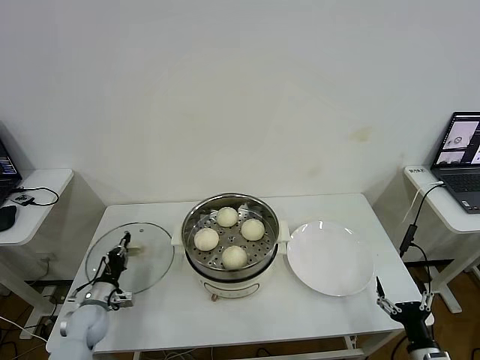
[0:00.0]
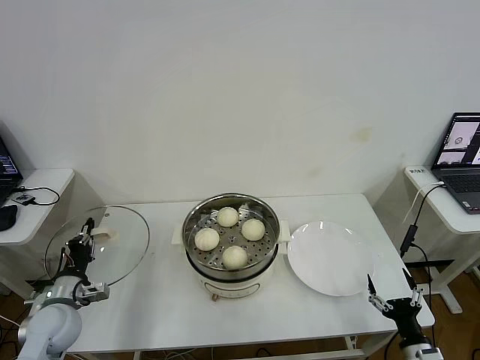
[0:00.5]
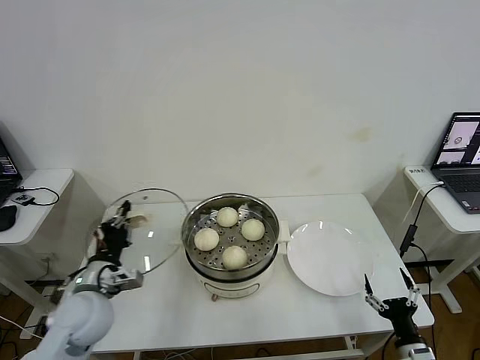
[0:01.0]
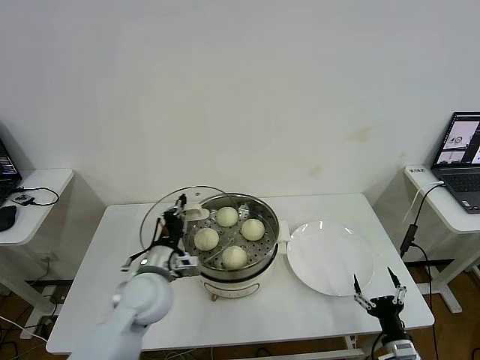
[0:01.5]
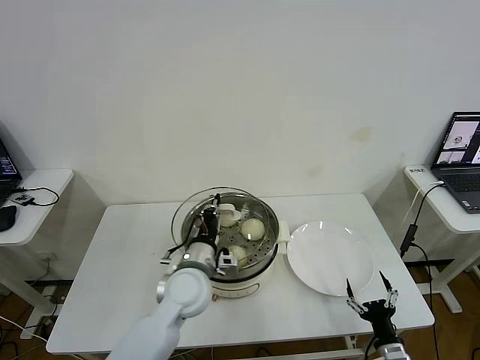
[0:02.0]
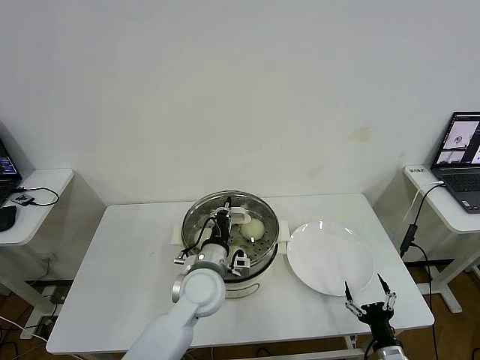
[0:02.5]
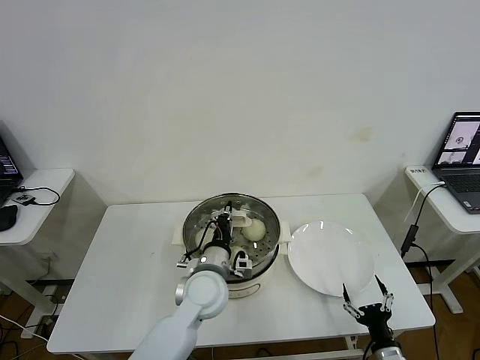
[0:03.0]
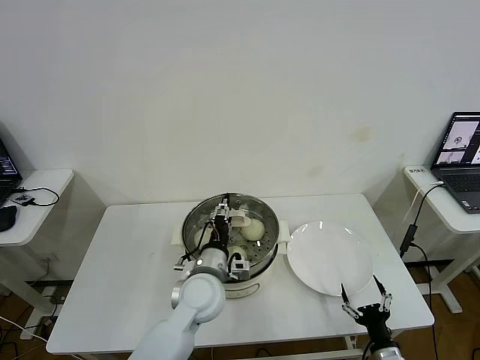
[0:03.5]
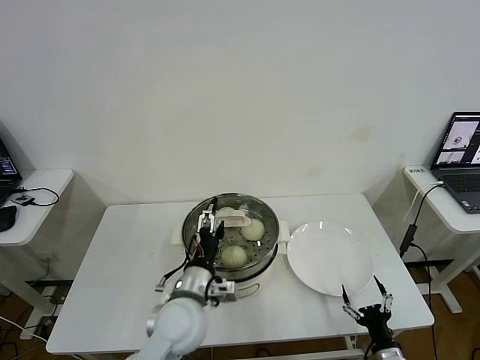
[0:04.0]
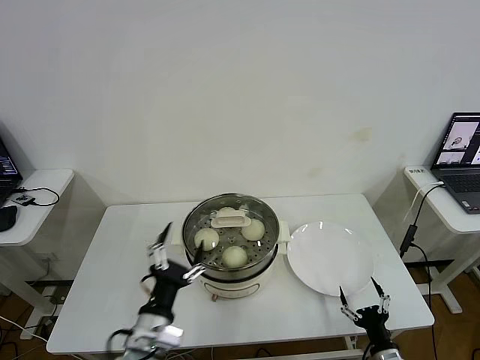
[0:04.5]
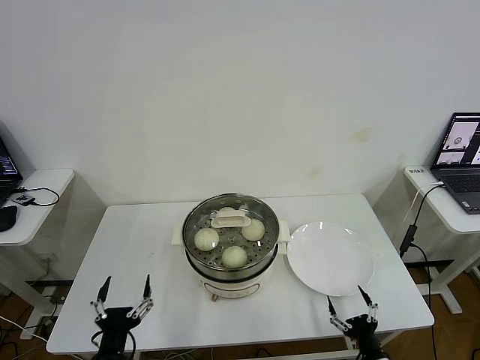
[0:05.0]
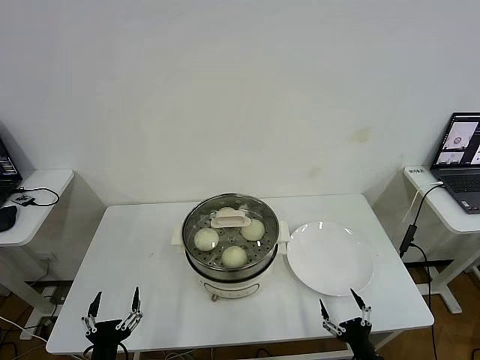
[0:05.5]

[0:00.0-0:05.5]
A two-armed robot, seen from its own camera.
Step, 0:00.0 to 0:04.0: Place the pot lid on the steamer with left gripper.
0:00.0 to 0:02.0: The right gripper travels to the left by about 5 cm, while the left gripper moves to the right and upward, some 35 cm.
0:02.0 to 0:03.5: The left gripper opens its fingers.
0:03.5 to 0:05.5: The left gripper heads backward, to the left and downward, covering roughly 30 cm, and opens its fingers.

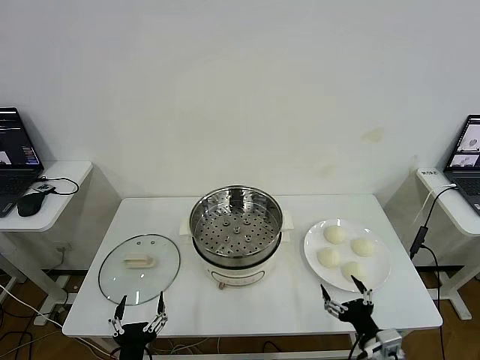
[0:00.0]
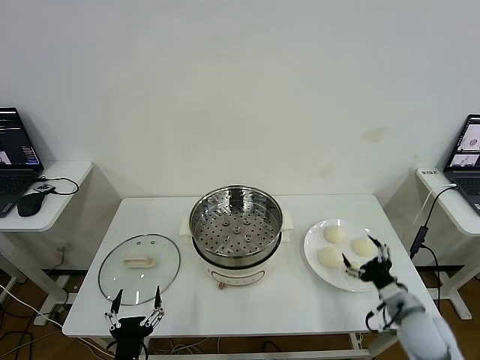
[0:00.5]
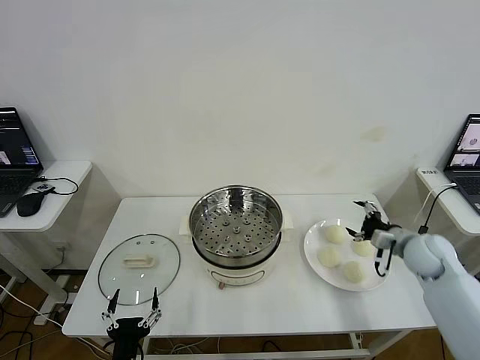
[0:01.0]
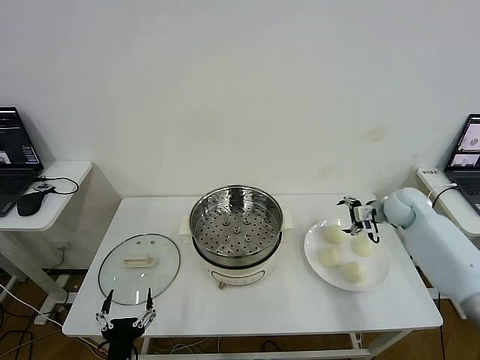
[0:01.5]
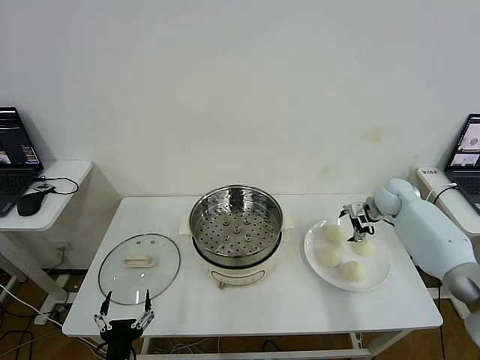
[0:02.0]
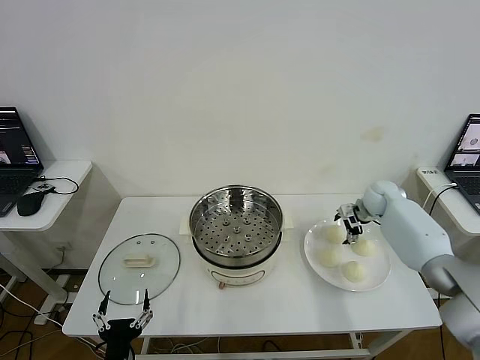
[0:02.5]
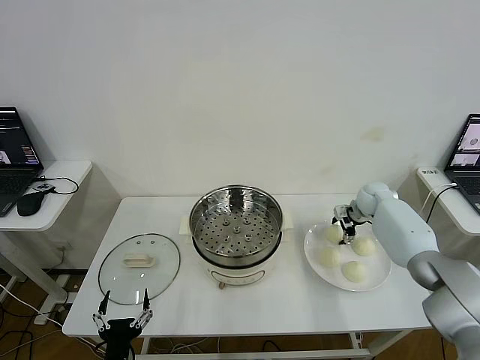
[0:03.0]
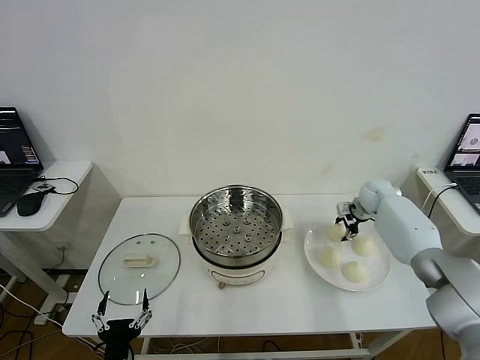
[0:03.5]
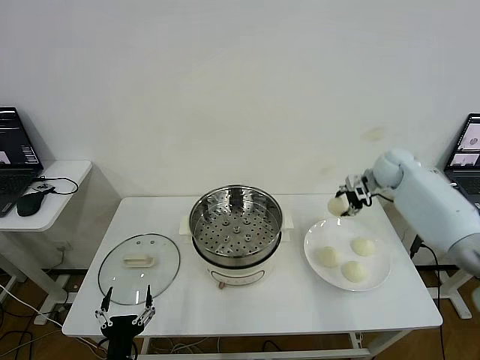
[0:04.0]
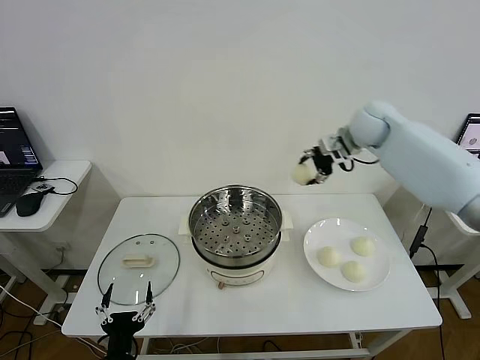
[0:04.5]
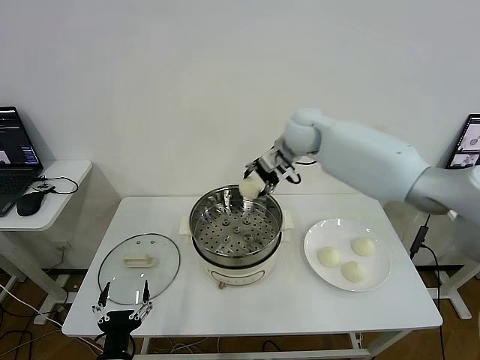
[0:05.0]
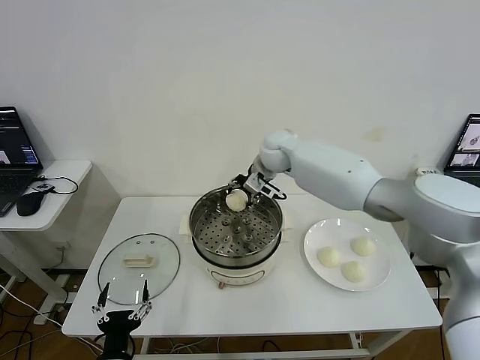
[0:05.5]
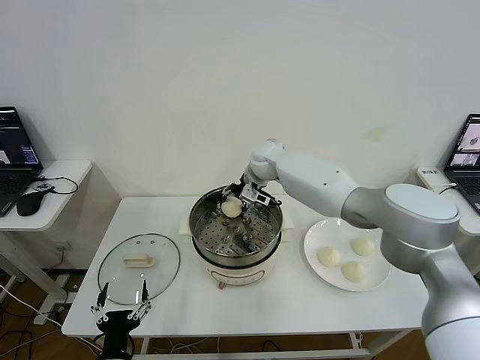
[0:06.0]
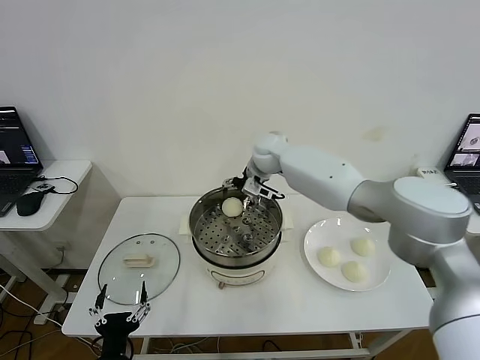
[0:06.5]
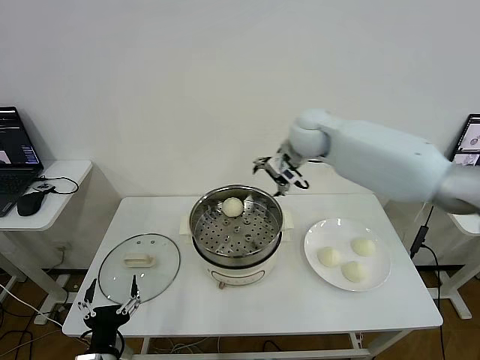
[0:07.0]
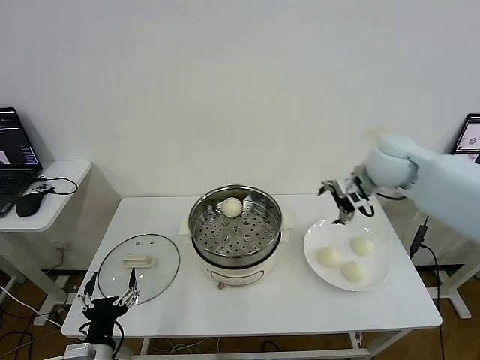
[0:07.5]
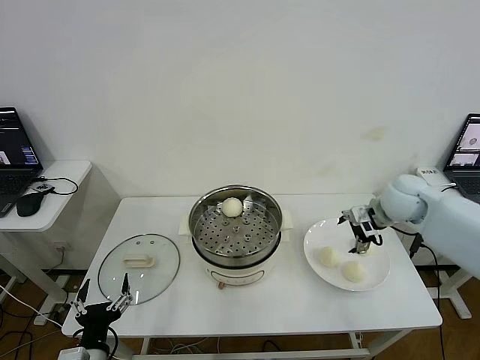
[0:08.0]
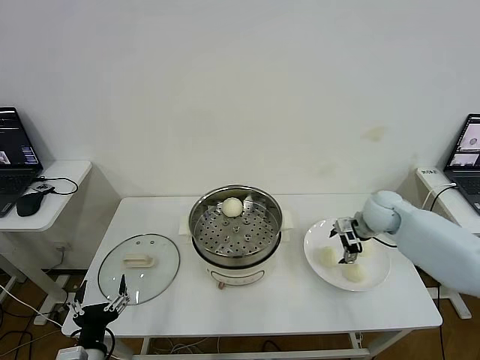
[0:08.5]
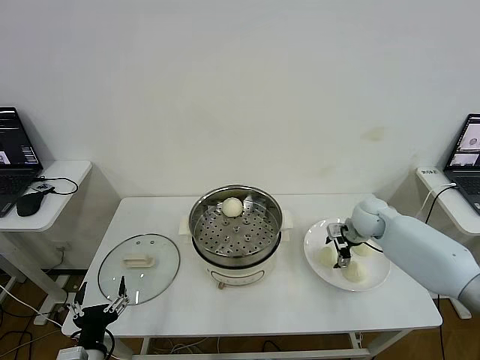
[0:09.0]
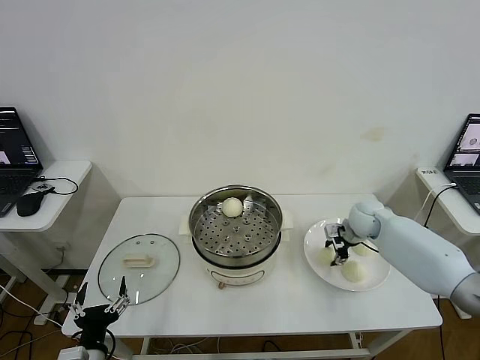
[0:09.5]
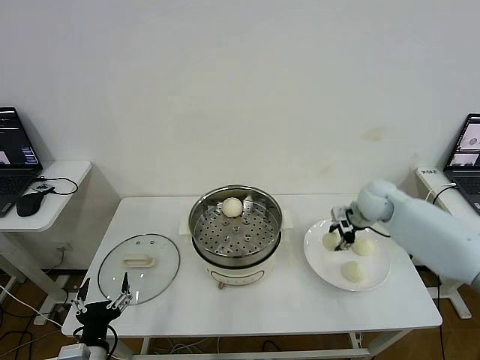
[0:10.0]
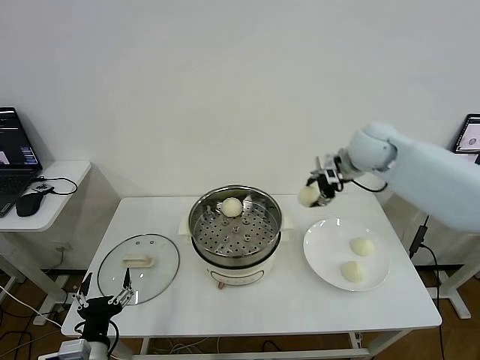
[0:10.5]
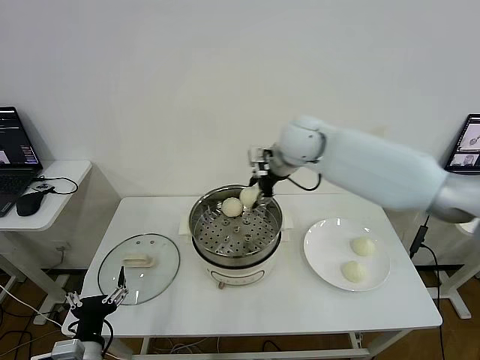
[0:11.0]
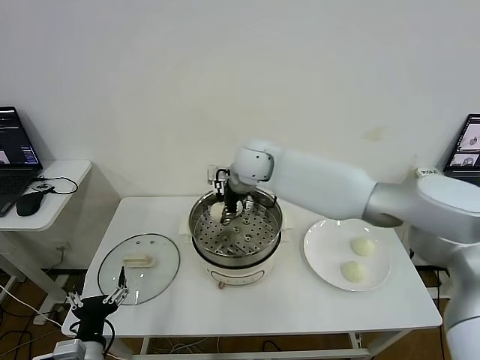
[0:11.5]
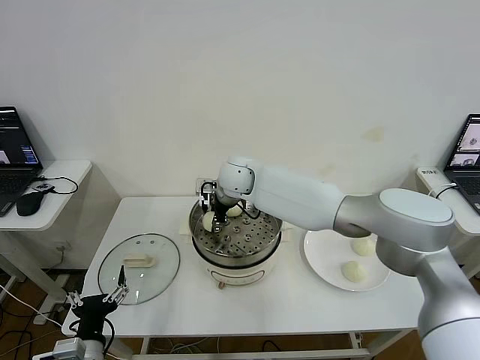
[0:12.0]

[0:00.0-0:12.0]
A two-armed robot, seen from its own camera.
Step, 0:00.0 to 0:03.0: Grasp the baozi in the plate with right gripper.
Step, 0:03.5 to 0:06.0: Place the baozi on the steamer with right gripper.
Step, 0:06.5 to 0:09.5: Grasp the baozi in the plate with right gripper.
0:02.0 to 0:04.0: The right gripper is displaced upward by approximately 10 cm, and closes up.
0:04.0 to 0:06.0: The right gripper goes about 30 cm to the left.
0:06.0 to 0:08.0: The left gripper changes place by some 5 cm. The right gripper heads to the right and backward, covering some 30 cm, and opens its fingers.
0:08.0 to 0:10.0: The right gripper travels downward and back again, roughly 10 cm each way, and closes.
0:10.0 to 0:12.0: The right gripper goes about 35 cm to the left.

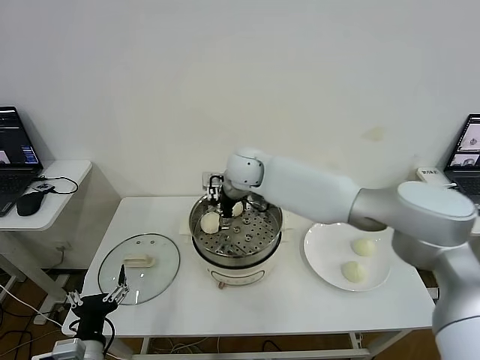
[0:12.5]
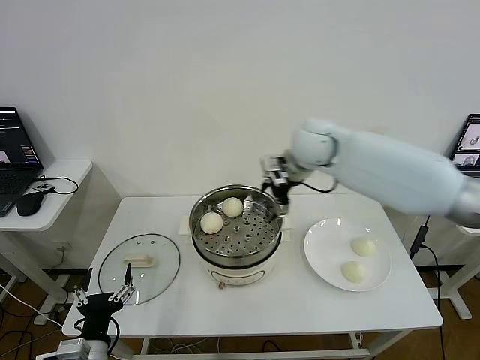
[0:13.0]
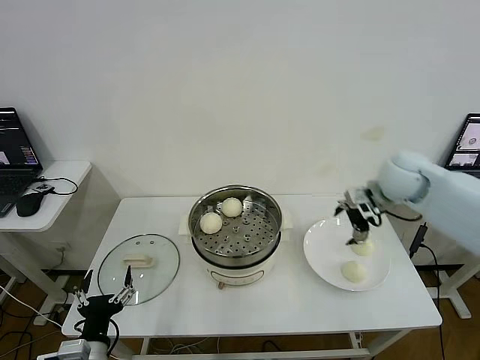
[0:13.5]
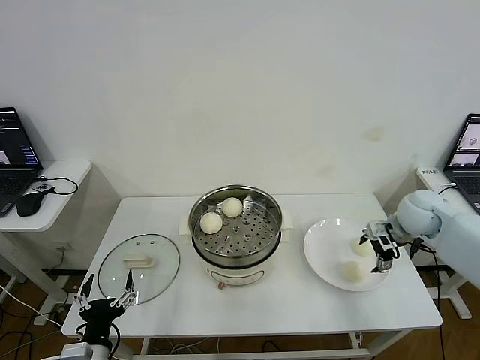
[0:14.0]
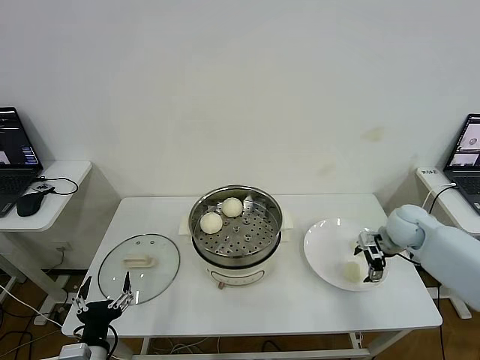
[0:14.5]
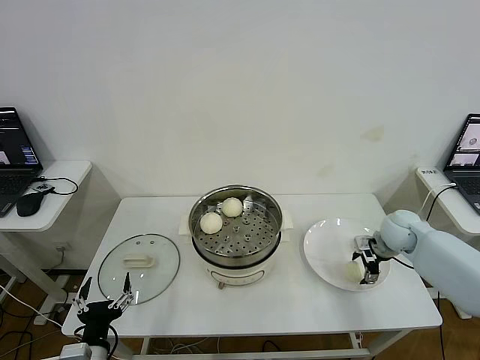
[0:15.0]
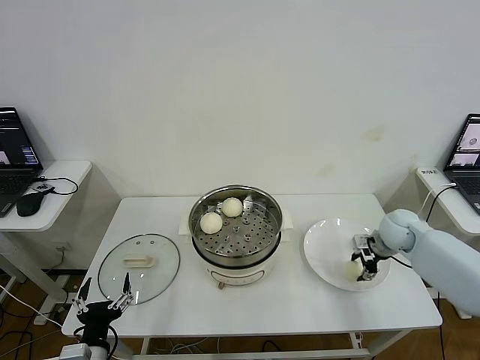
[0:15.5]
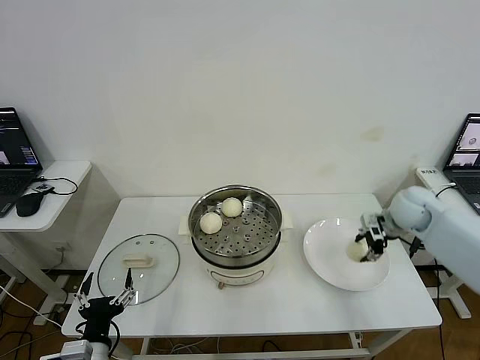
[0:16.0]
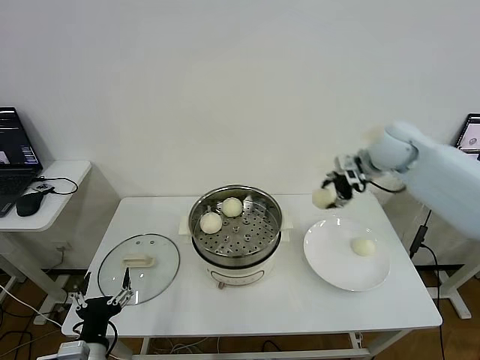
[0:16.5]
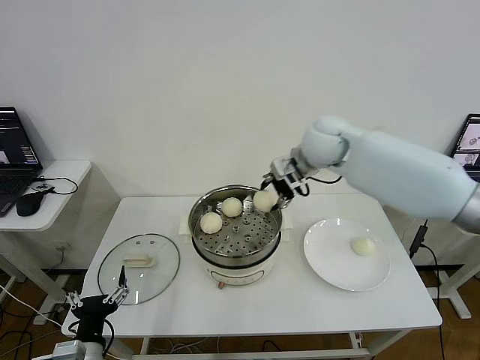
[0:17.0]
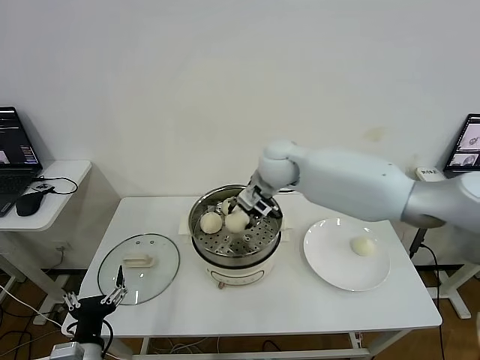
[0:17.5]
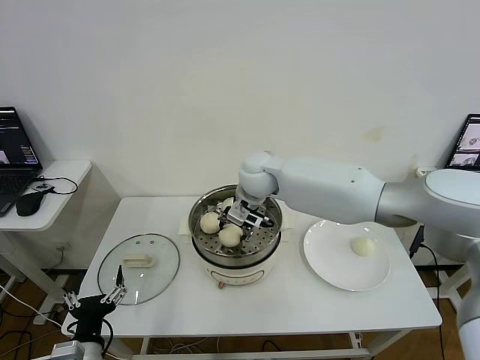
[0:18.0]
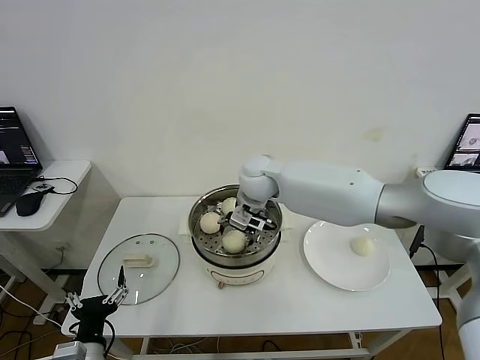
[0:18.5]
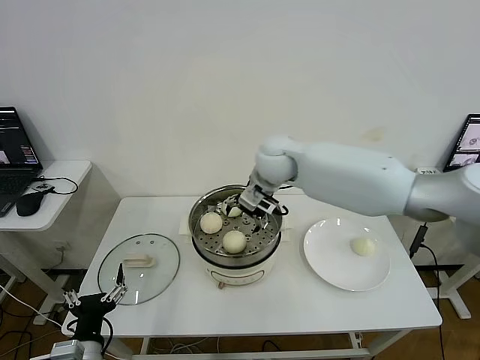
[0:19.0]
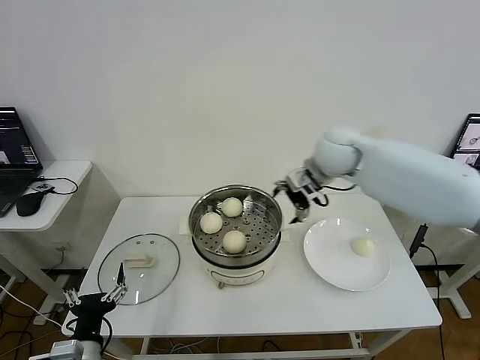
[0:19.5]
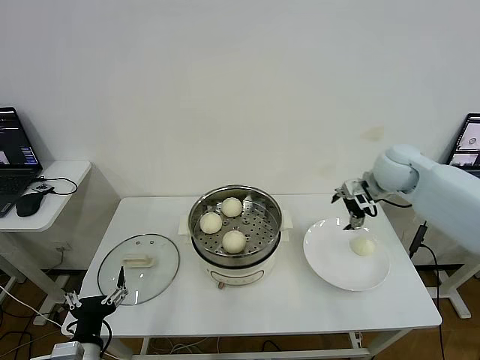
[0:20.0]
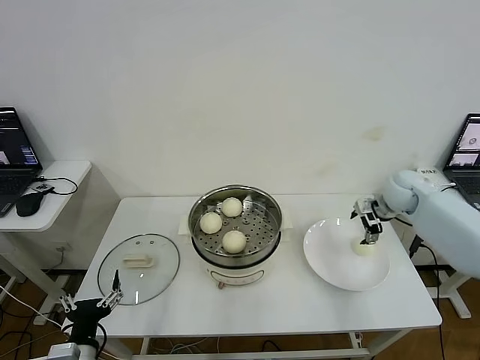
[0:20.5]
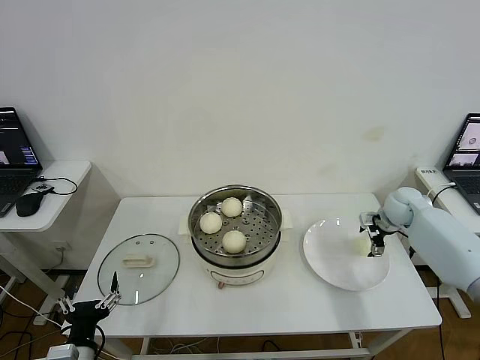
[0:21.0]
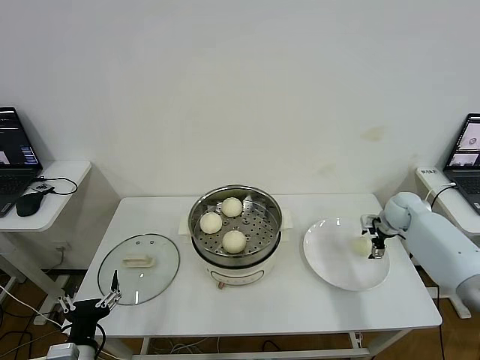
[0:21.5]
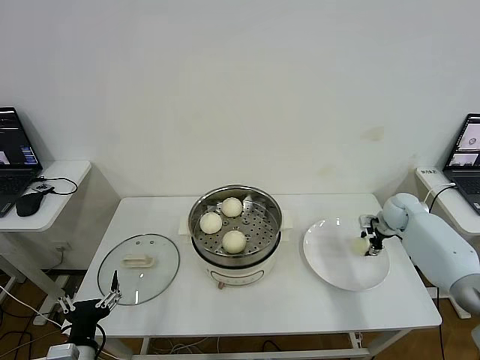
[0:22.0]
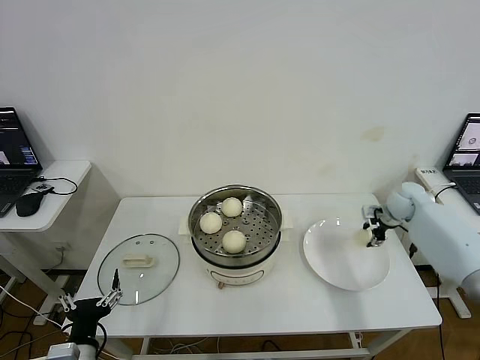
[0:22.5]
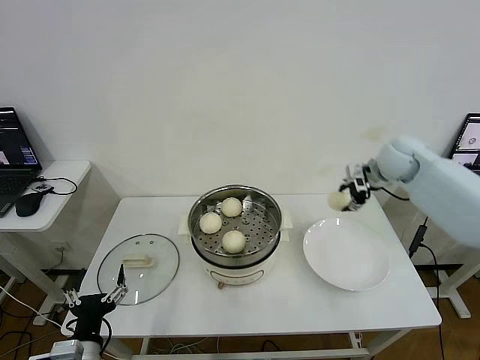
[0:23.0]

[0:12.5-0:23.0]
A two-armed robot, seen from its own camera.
Step, 0:12.5 to 0:15.5: Grasp the baozi in the plate with right gripper.
Step, 0:16.0 to 0:18.5: Place the baozi on the steamer with right gripper.
Step, 0:19.0 to 0:22.0: Grasp the baozi in the plate with right gripper.
0:12.5 to 0:14.5: The right gripper is displaced to the right by roughly 40 cm.
0:14.5 to 0:16.5: The right gripper travels upward and to the left by approximately 20 cm, and closes its fingers.
0:16.5 to 0:19.0: The right gripper heads to the left, covering approximately 20 cm, and opens.
0:19.0 to 0:21.0: The right gripper goes approximately 40 cm to the right and downward.
0:21.0 to 0:23.0: The right gripper is displaced upward and to the left by some 15 cm, and closes.
